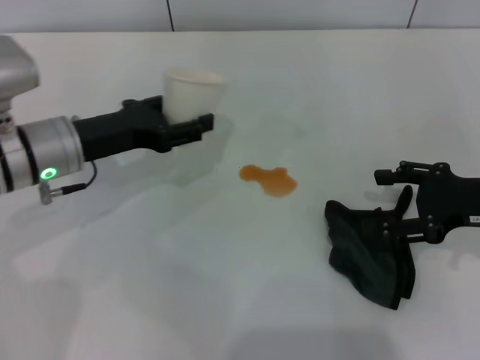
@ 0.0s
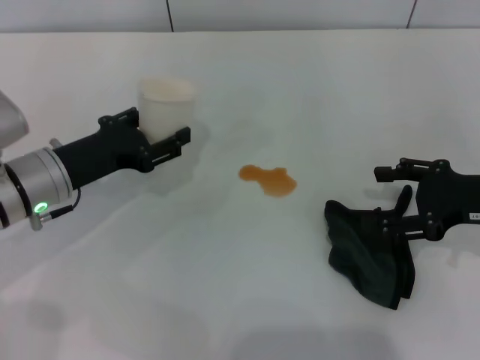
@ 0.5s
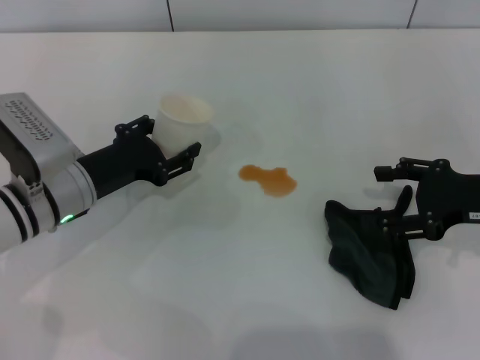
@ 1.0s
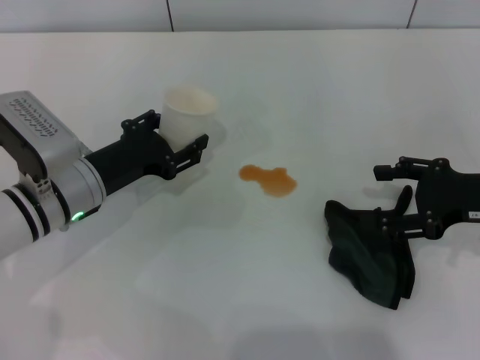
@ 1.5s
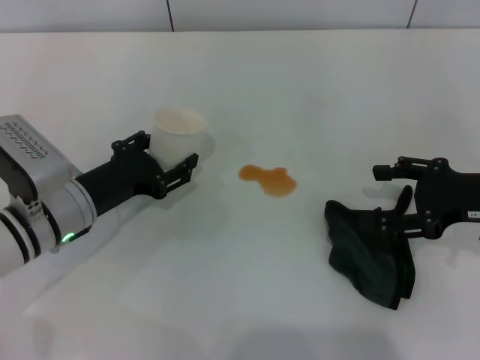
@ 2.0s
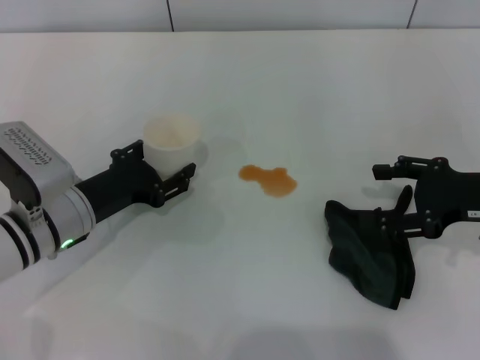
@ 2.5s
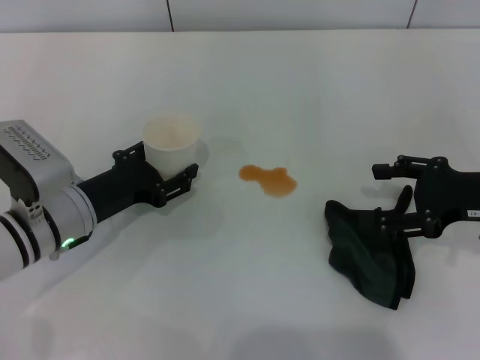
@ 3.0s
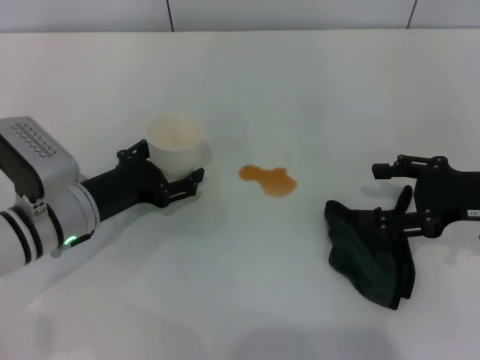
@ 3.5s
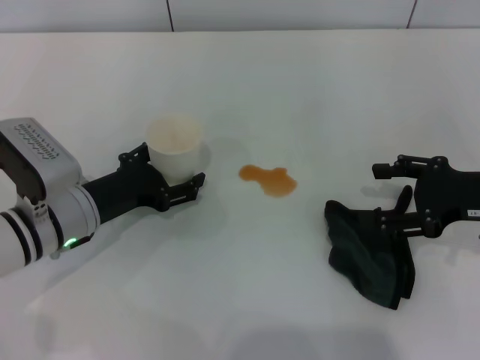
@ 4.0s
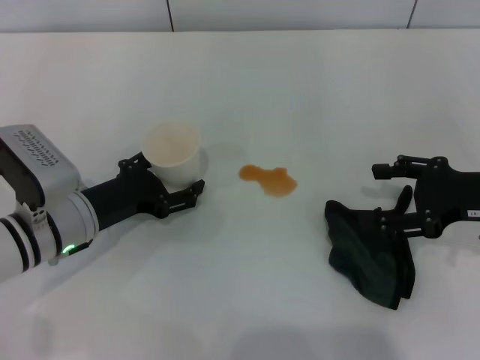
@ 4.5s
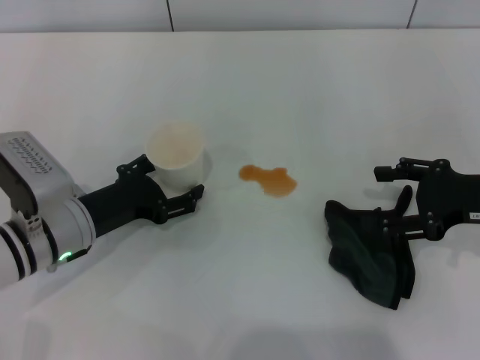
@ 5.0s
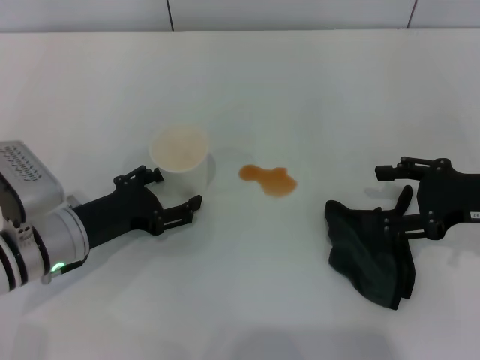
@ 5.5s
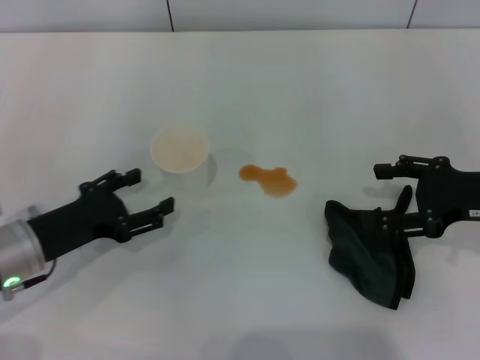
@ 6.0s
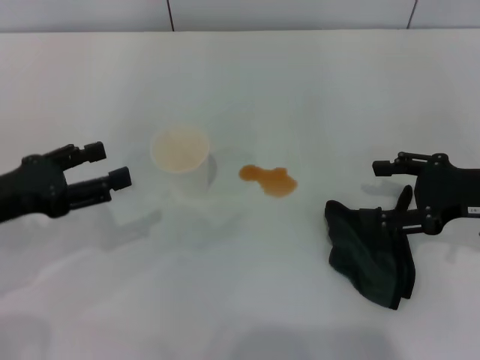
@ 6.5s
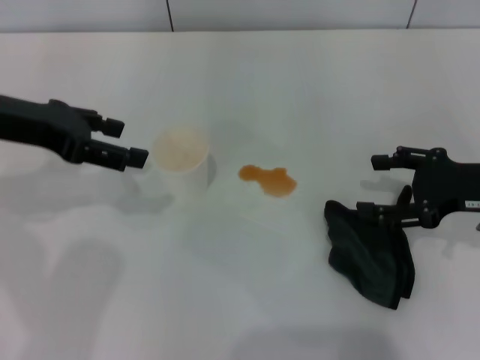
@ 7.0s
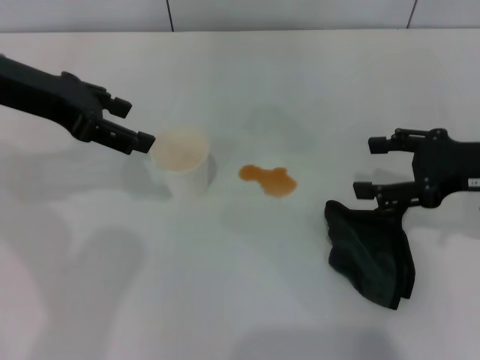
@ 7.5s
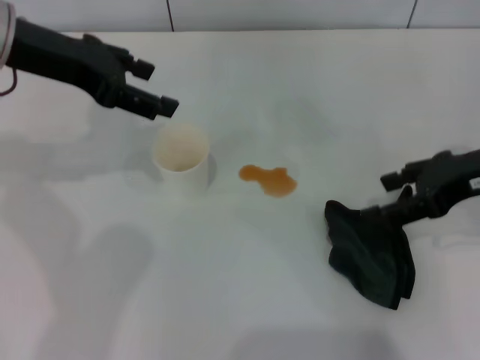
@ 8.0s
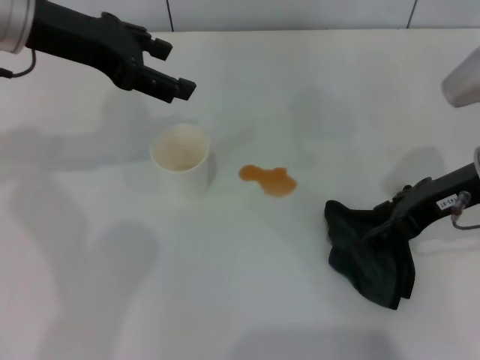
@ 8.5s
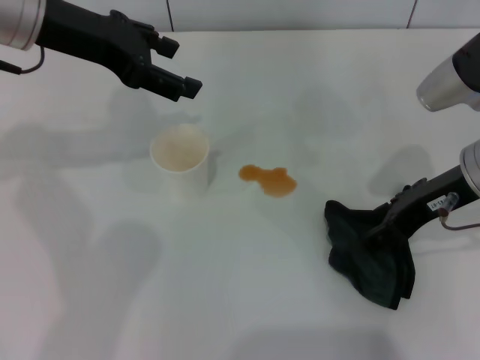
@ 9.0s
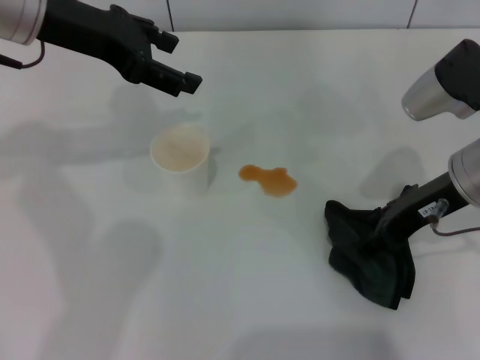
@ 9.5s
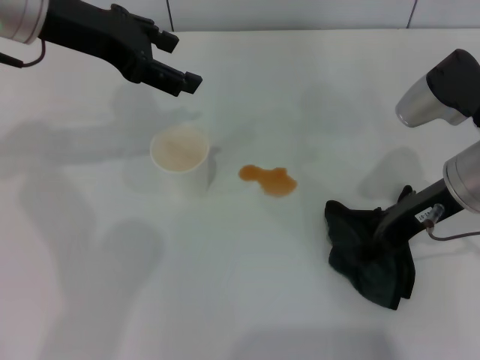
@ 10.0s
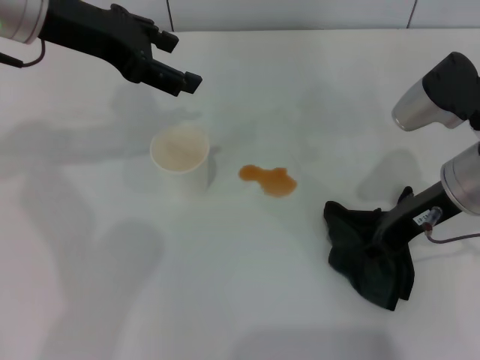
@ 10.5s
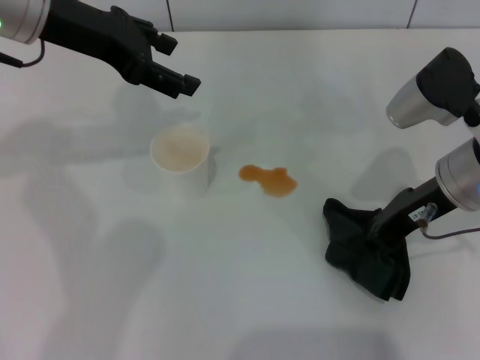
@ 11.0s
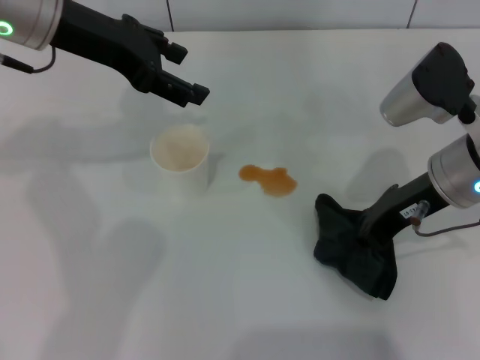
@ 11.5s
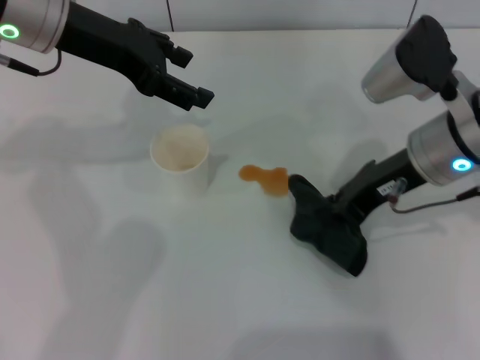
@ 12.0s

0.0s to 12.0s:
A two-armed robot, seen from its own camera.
Step, 0.0s to 5.0s: Stand the paper cup upright with the left gripper.
Step, 5.5s to 11.5s: Grasp the rag with the right gripper.
0.0s to 2.0s: The left gripper moves downward, about 5 cm.
2.0s to 4.0s: The left gripper opens its fingers.
4.0s to 6.0s: The left gripper ends up approximately 5 cm from where it was.
6.0s to 8.0s: The left gripper travels upward and forward by some 25 cm, while the right gripper goes about 5 cm upward.
8.0s to 10.0s: The right gripper is displaced to the left by about 5 cm.
10.0s to 12.0s: The right gripper closes.

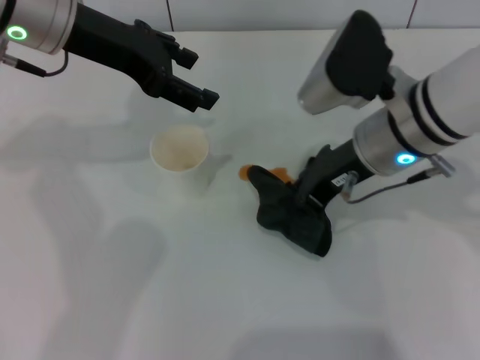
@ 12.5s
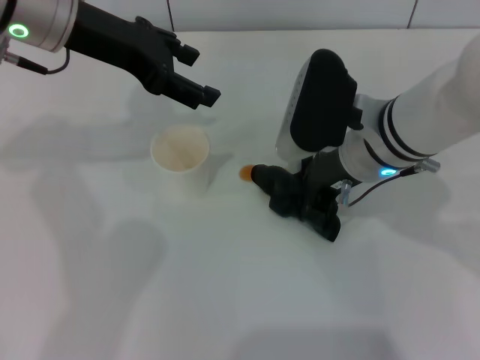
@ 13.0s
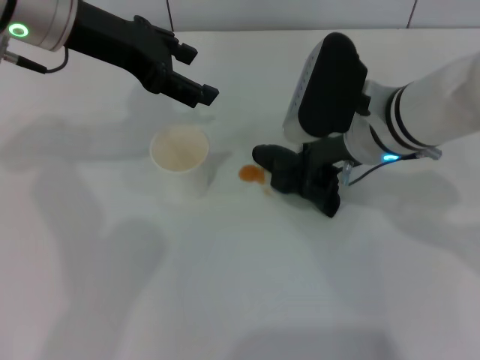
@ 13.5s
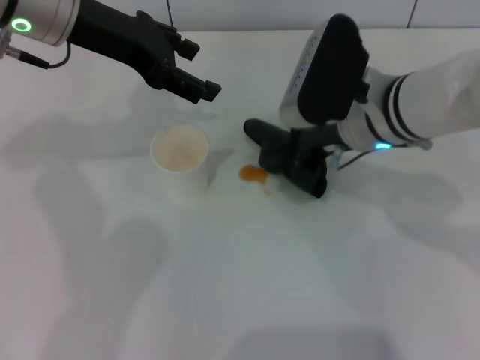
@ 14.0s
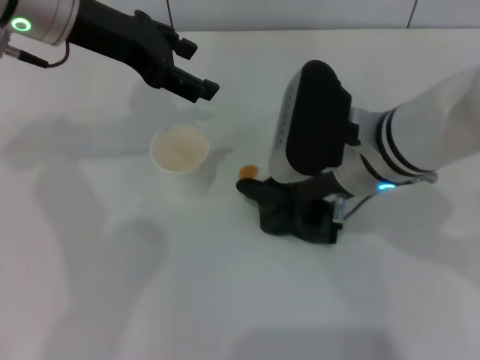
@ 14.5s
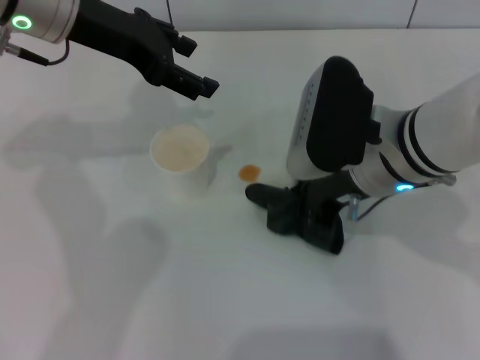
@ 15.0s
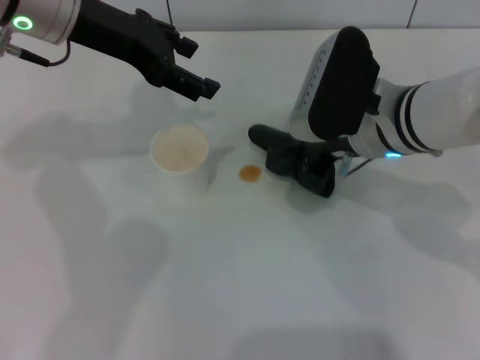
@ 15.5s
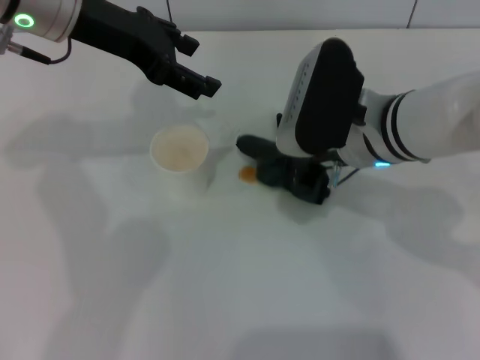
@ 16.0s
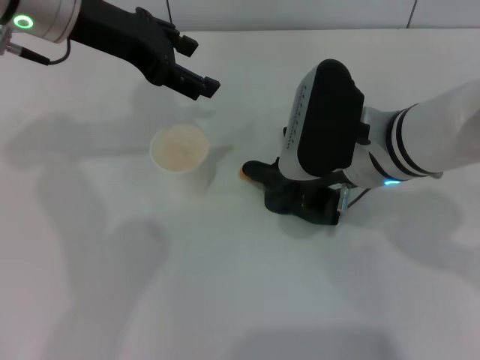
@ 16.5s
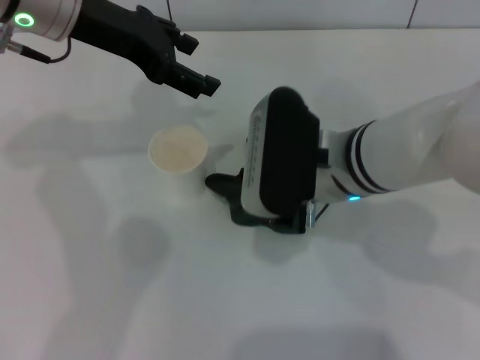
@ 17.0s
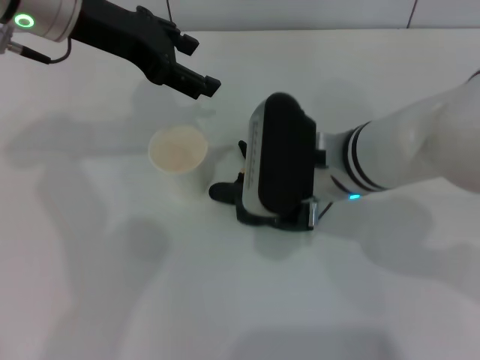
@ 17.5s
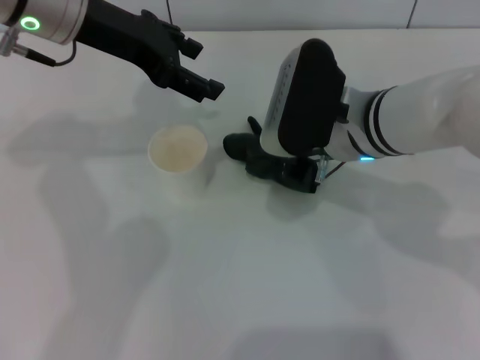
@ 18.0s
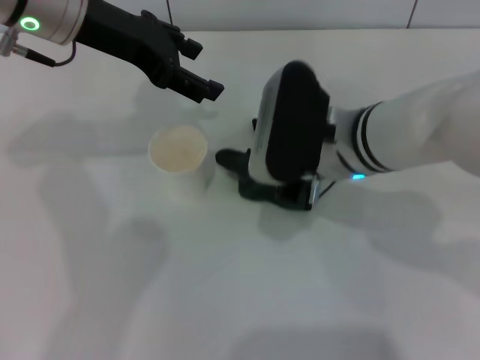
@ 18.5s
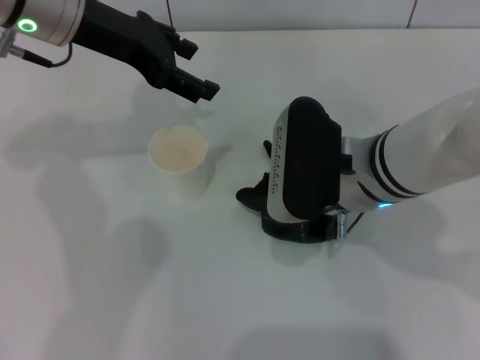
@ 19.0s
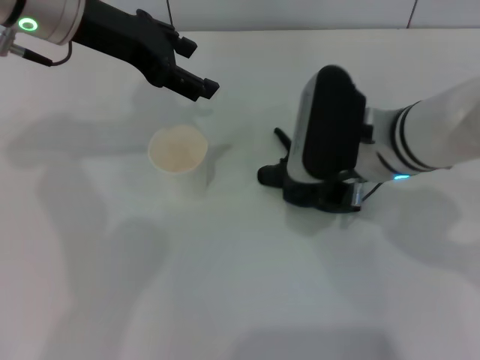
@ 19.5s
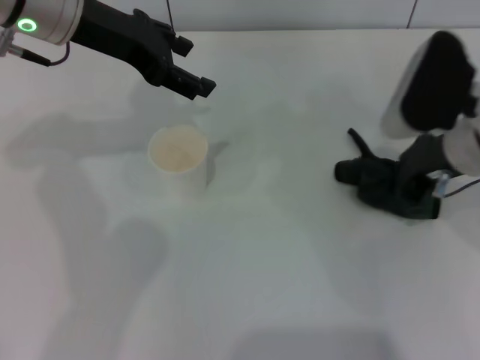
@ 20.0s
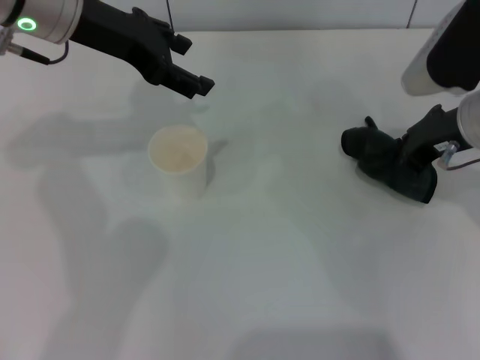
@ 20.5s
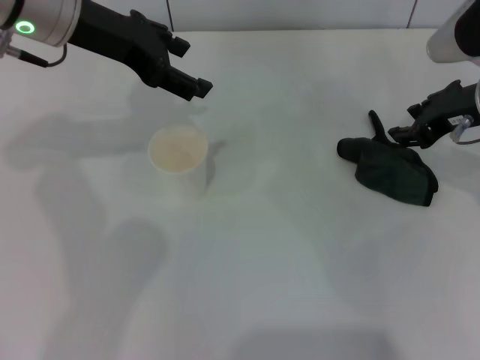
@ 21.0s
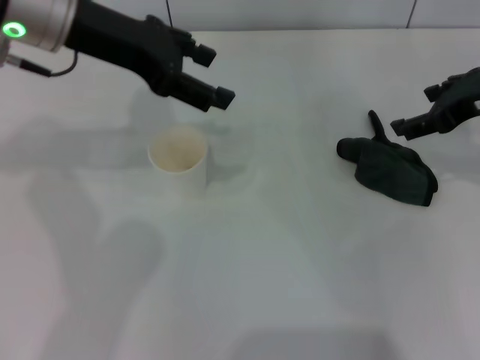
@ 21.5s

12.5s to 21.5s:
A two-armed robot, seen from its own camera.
Step, 12.5s to 20.0s: Wipe the stains off the table with the right gripper.
Step, 20.5s to 21.0s: Place the rag on the table with the right gripper.
14.5s to 19.5s: The grippers stay close to where they were, moving slightly.
19.5s to 21.5s: The right gripper shifts some 15 cm to the right and upward, and opens.

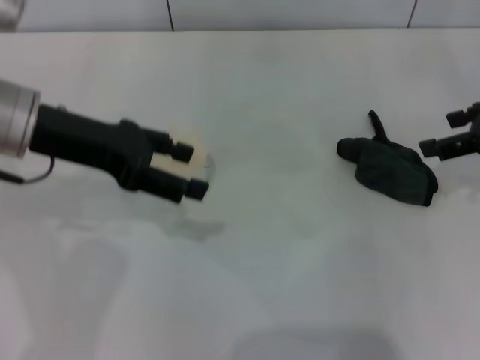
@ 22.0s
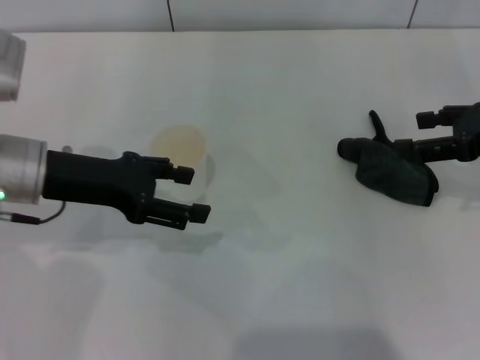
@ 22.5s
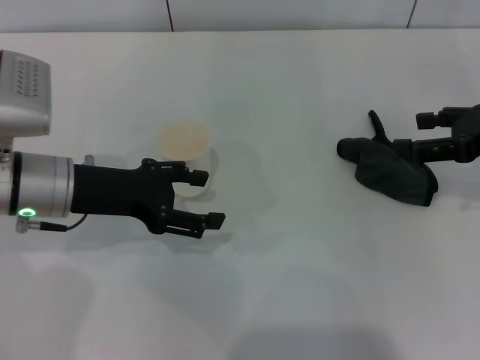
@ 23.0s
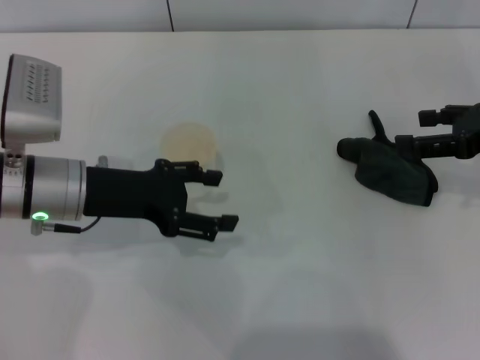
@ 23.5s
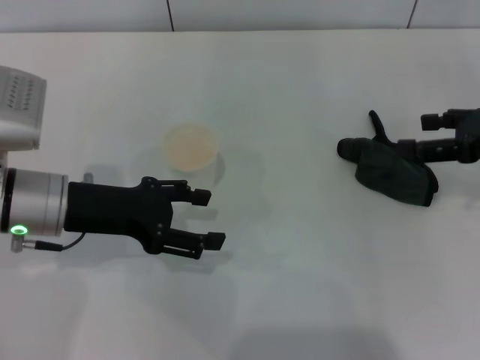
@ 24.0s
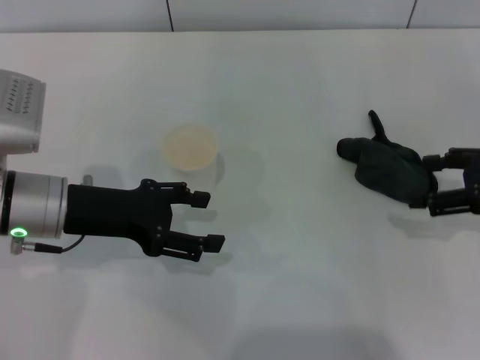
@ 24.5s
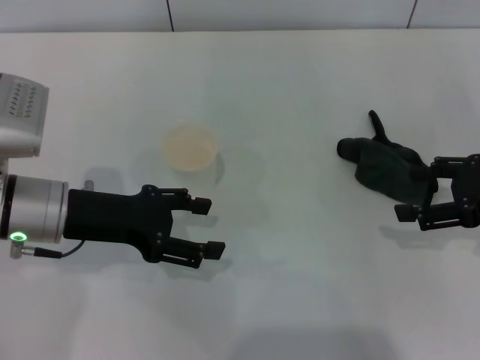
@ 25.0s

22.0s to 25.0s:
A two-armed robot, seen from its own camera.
22.0s to 23.5s: The left gripper goes about 10 cm downward.
23.5s to 25.0s: The grippers make only small movements.
